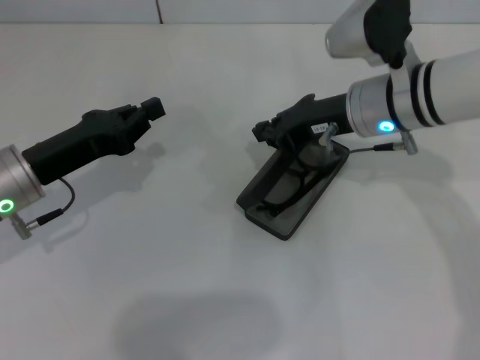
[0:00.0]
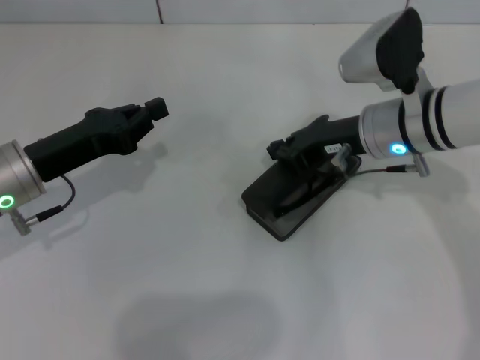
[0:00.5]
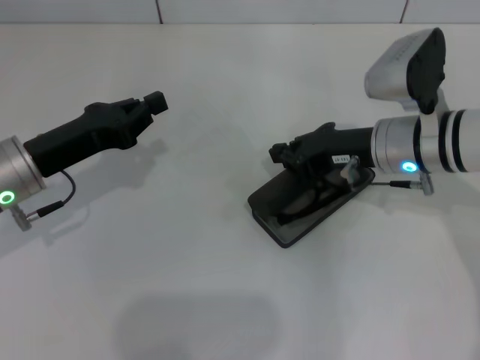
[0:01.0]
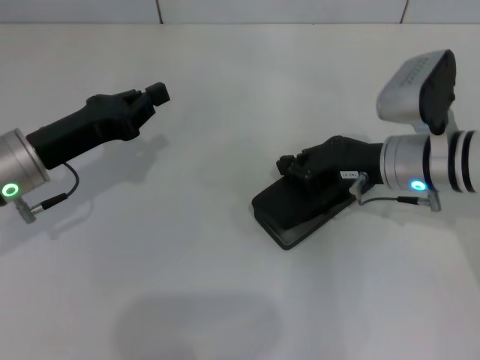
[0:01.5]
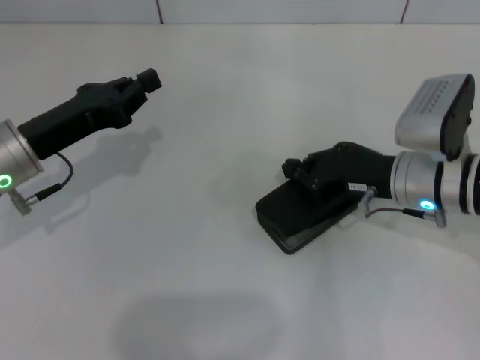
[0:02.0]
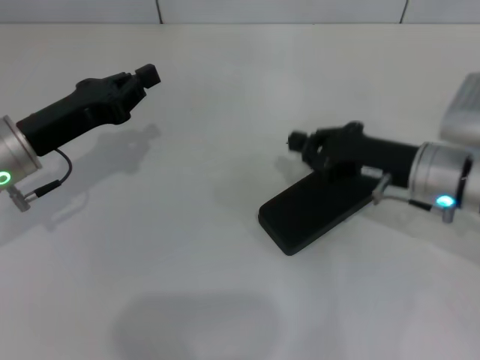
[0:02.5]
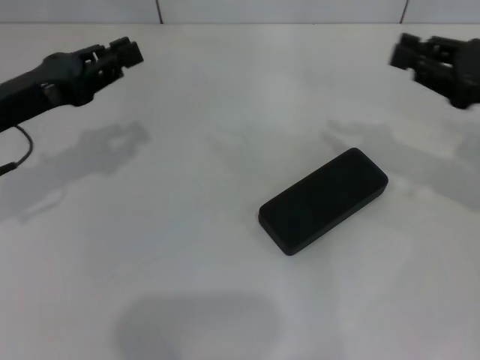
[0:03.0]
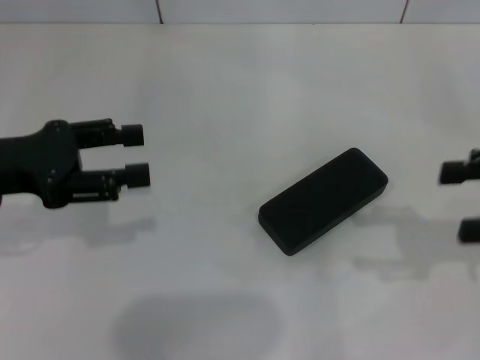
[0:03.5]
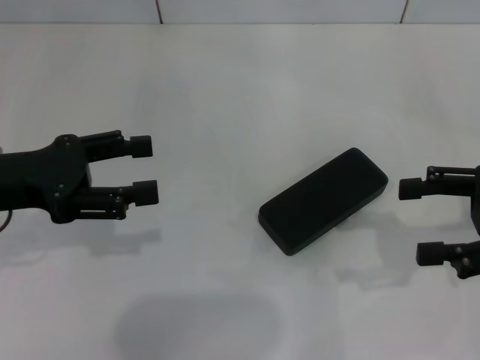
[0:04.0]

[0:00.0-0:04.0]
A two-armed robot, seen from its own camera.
Step, 0:00.0 to 0:02.0: Close the glasses case with your right hand.
0:00.0 to 0:02.0: The right gripper shifts roughly 10 cm downward, to the right and backward.
0:02.0 to 0:04.0: The left gripper goes roughly 5 cm upward, and opens up. Meanwhile the right gripper travels to the right, upward and backward by some 15 cm, and opens up.
